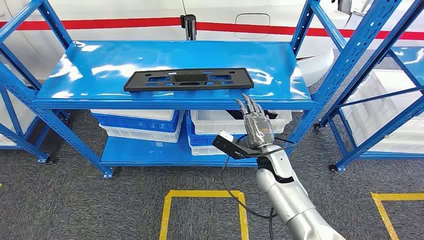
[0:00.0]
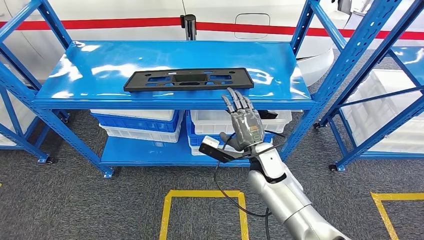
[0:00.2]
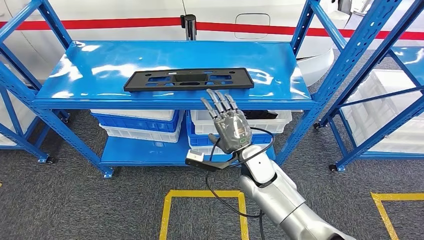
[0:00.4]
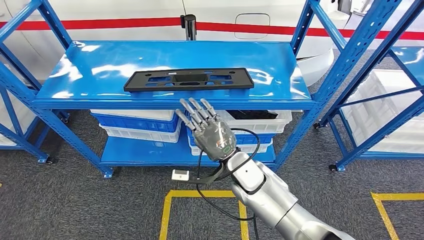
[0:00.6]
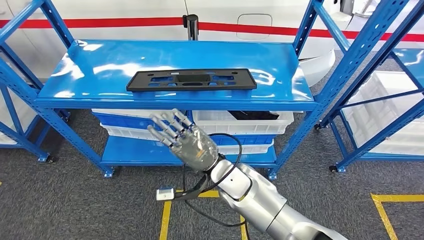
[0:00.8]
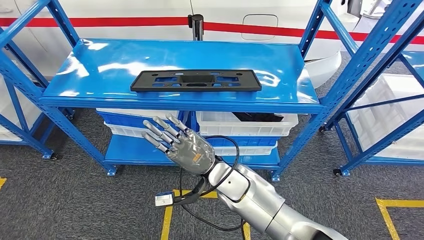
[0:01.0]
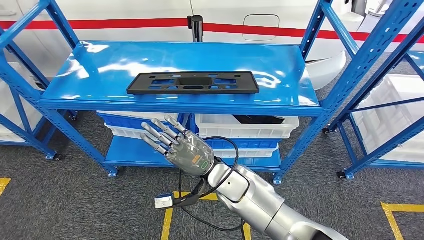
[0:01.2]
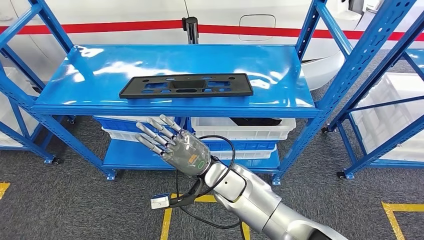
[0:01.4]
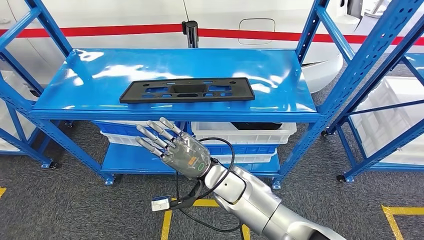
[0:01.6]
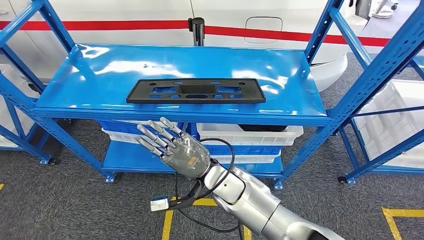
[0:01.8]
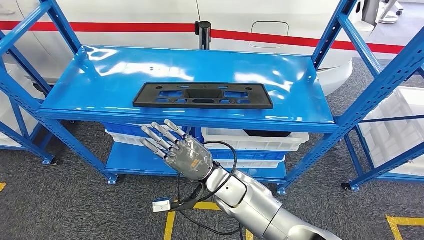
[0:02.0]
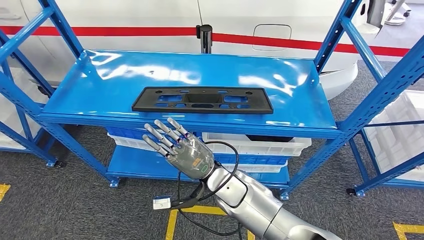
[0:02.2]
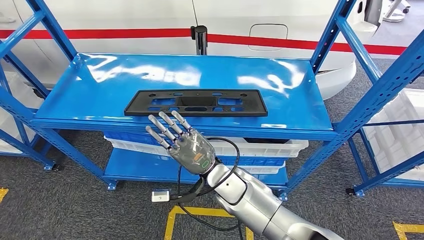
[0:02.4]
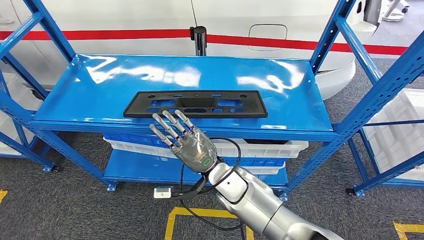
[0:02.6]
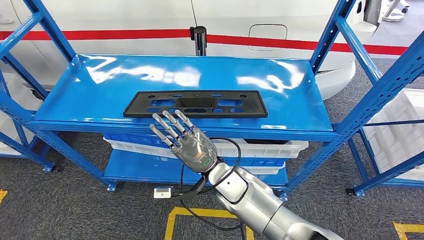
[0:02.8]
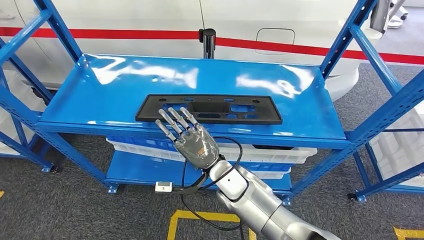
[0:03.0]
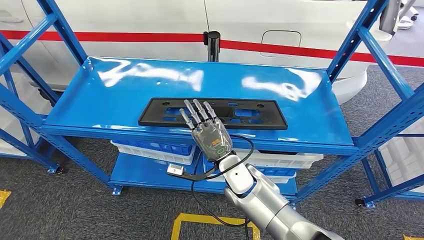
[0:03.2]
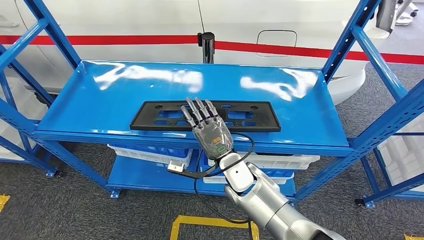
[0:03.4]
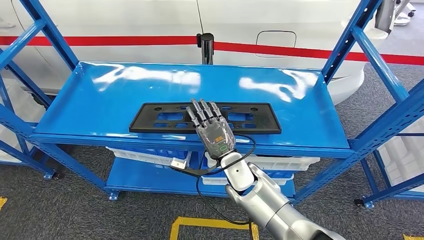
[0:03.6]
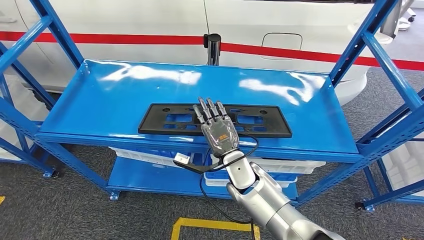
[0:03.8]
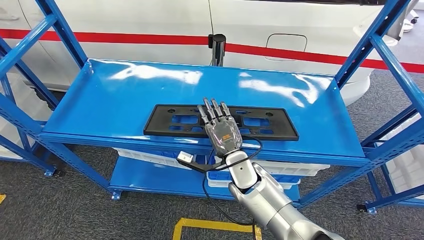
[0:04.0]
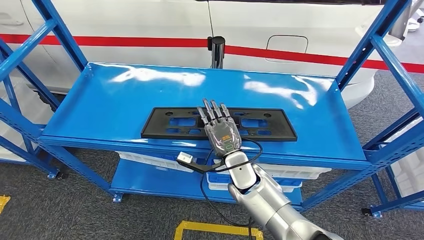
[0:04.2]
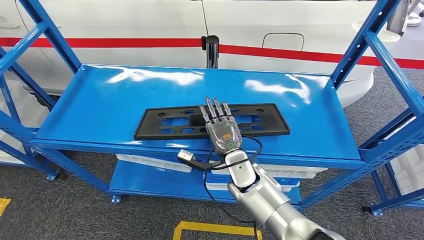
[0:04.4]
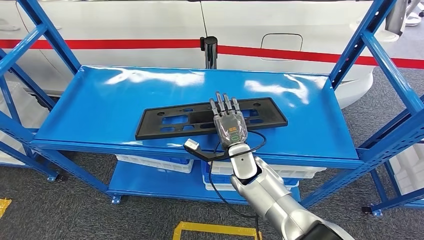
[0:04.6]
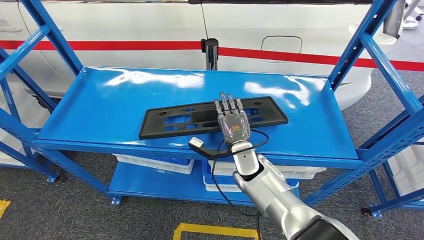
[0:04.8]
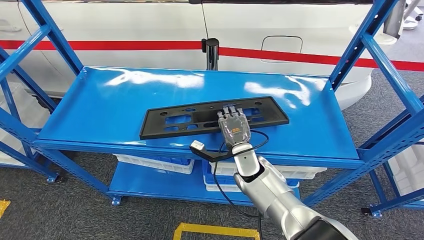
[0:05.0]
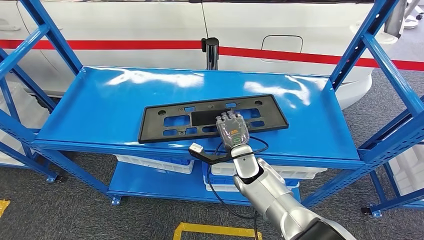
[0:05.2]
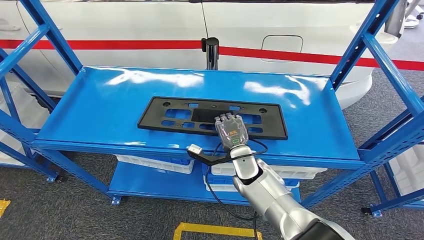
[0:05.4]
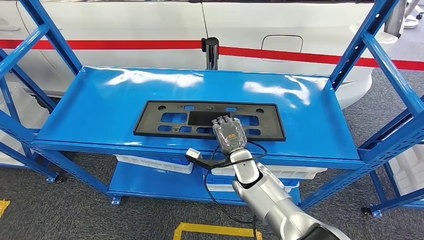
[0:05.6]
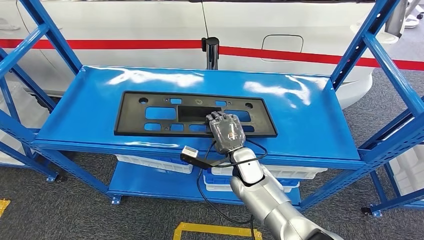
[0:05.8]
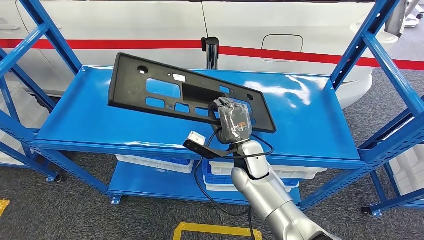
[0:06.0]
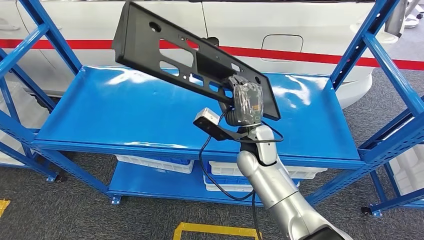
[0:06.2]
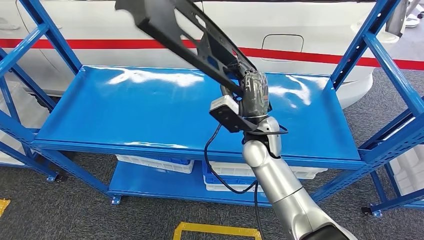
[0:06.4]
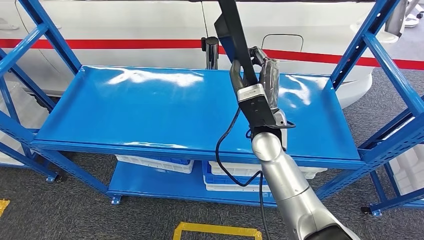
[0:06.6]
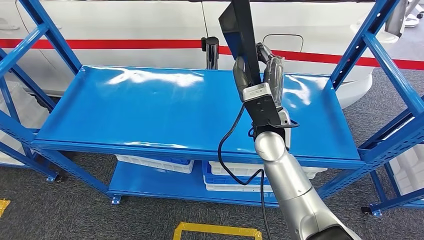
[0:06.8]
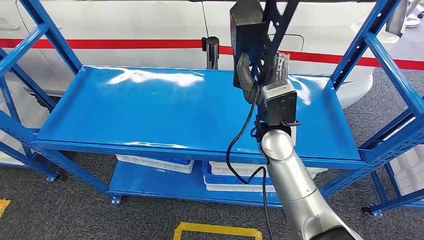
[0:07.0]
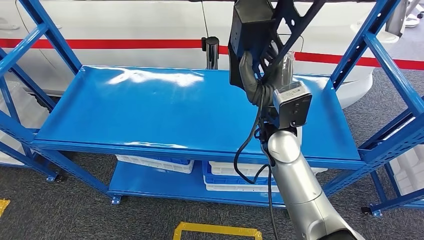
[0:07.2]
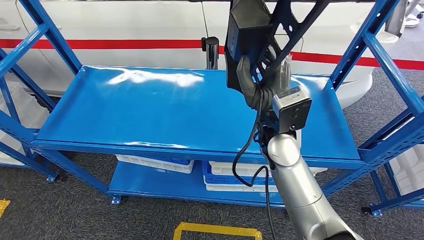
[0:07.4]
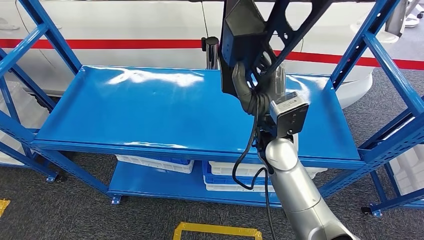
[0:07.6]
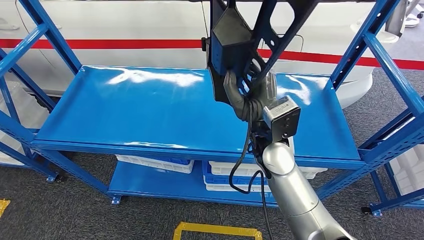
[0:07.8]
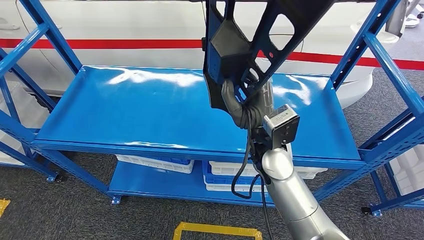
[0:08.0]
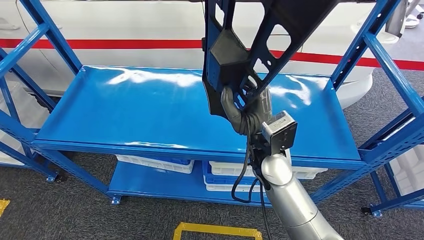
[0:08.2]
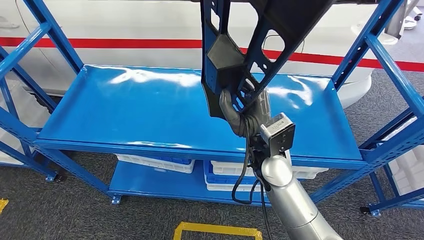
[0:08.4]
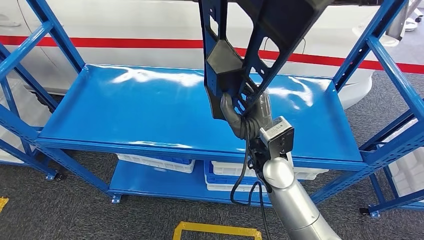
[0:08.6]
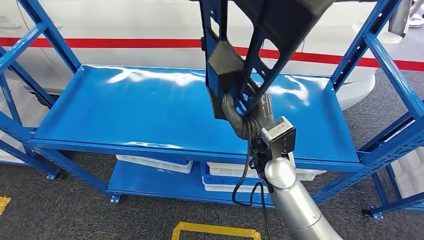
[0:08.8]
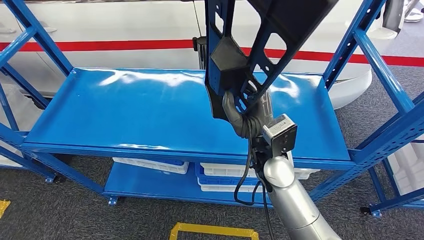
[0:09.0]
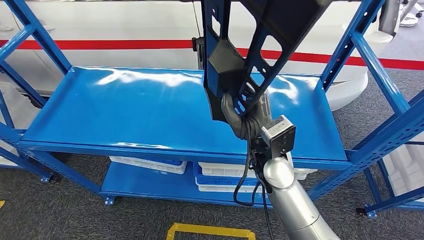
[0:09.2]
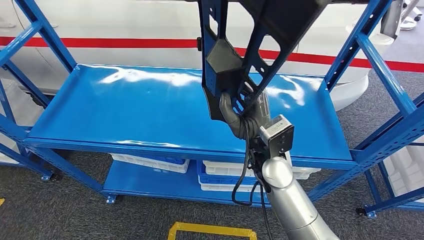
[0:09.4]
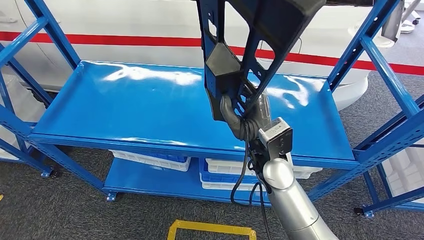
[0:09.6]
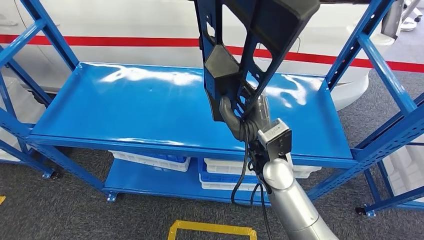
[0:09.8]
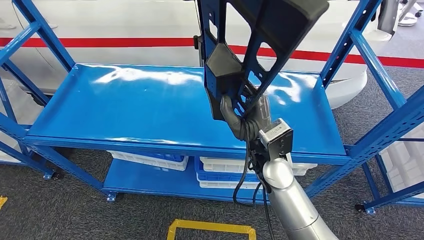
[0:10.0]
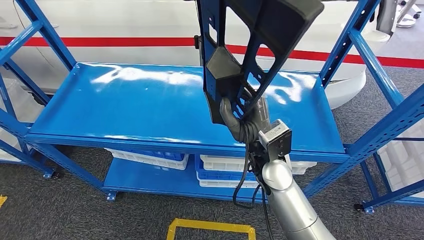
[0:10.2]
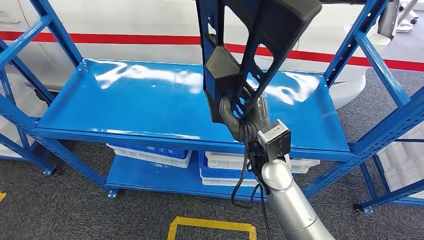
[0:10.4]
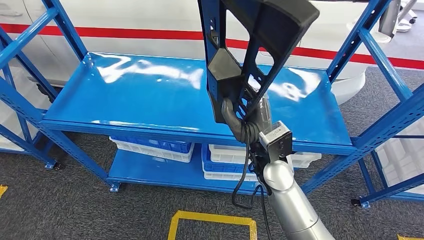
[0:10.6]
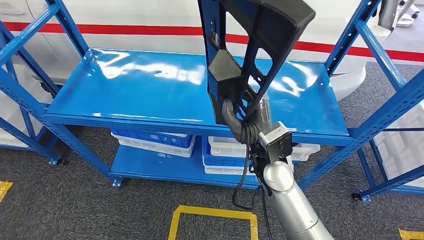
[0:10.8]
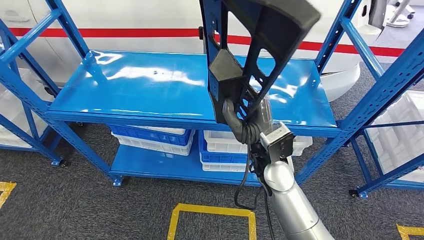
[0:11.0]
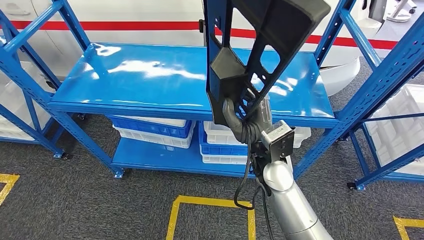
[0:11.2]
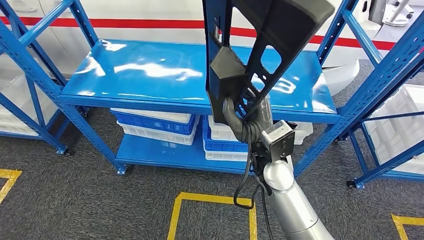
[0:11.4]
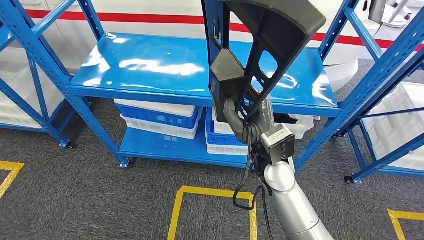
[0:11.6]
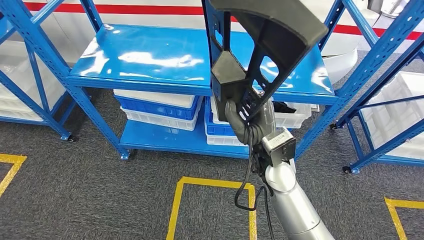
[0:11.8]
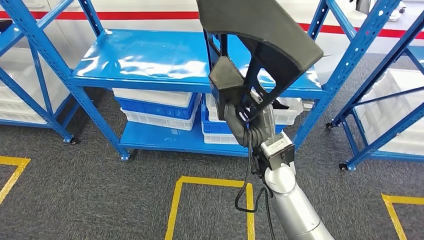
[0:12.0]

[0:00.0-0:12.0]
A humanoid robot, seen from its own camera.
Step, 0:00.0 to 0:10.2: Pick up the large material from the shelf.

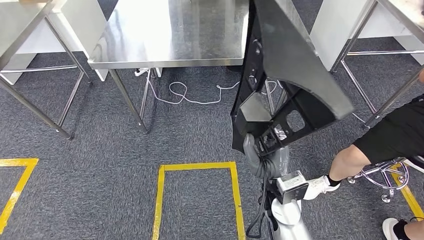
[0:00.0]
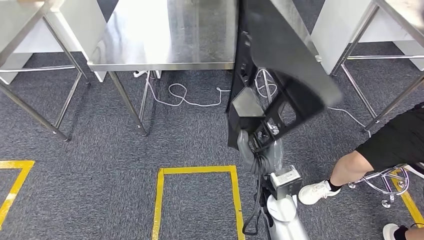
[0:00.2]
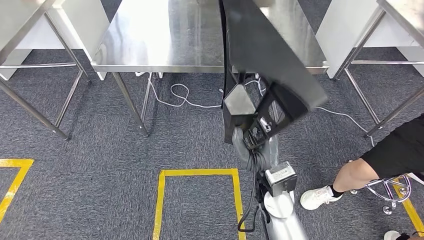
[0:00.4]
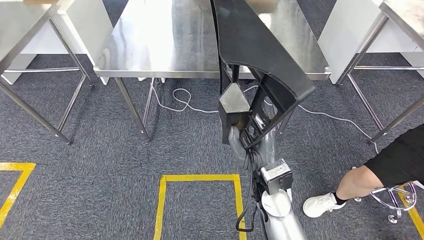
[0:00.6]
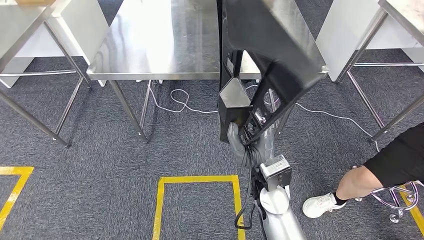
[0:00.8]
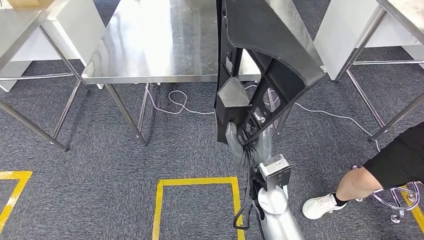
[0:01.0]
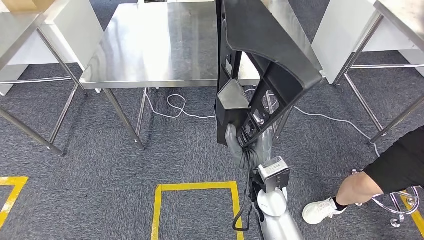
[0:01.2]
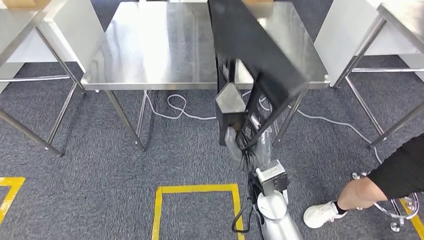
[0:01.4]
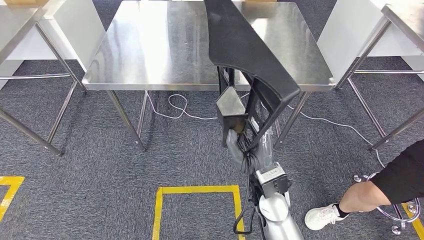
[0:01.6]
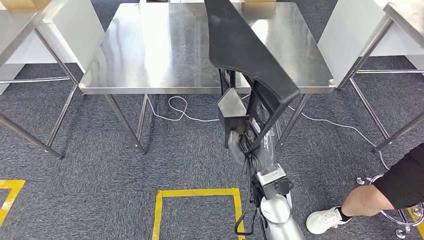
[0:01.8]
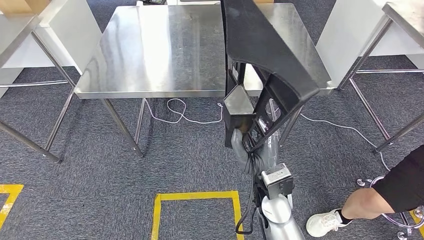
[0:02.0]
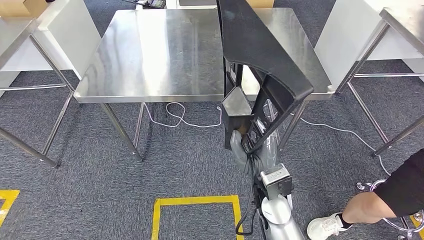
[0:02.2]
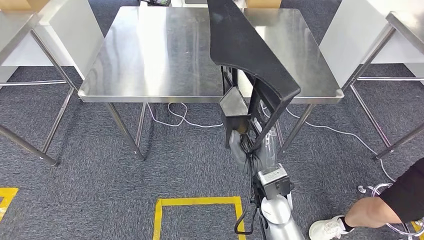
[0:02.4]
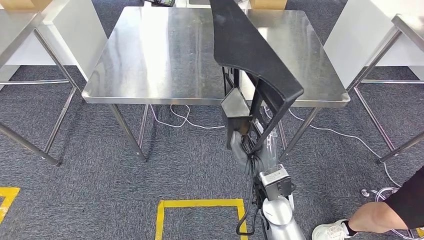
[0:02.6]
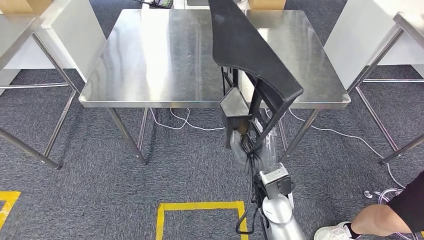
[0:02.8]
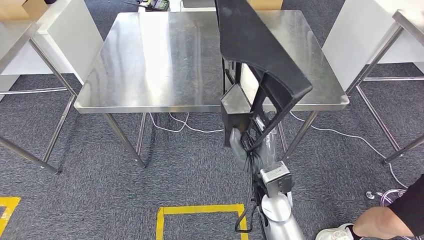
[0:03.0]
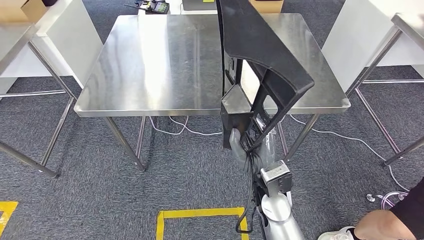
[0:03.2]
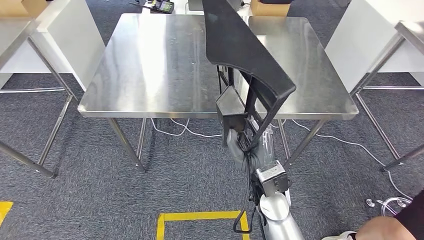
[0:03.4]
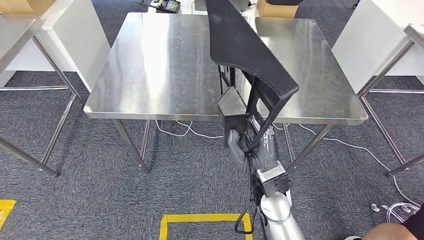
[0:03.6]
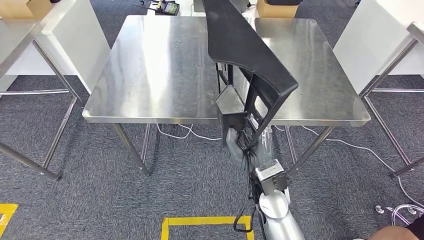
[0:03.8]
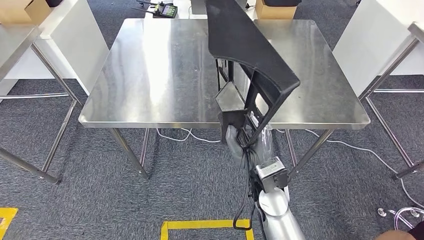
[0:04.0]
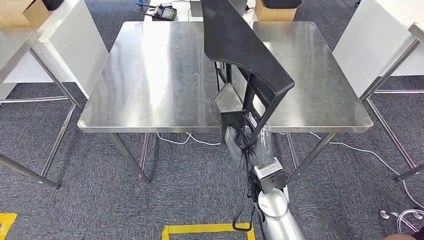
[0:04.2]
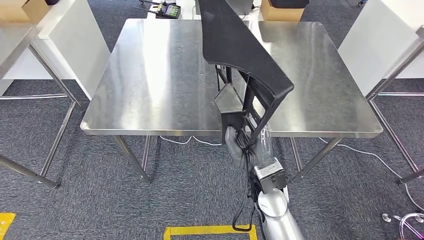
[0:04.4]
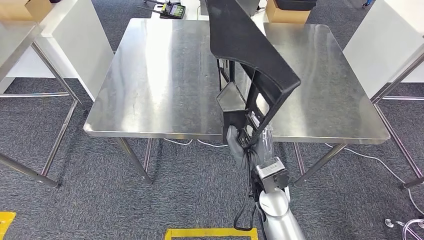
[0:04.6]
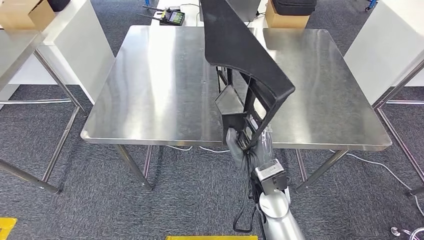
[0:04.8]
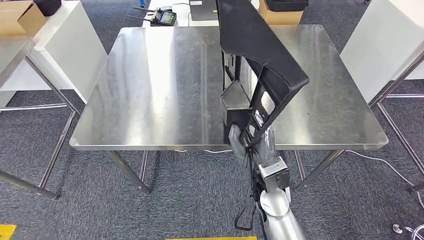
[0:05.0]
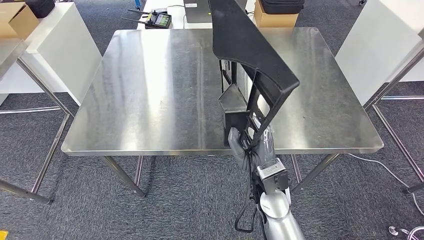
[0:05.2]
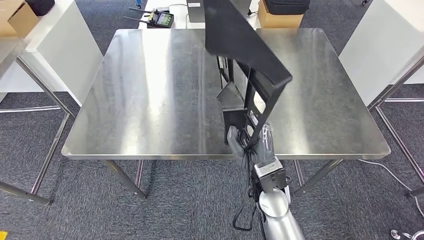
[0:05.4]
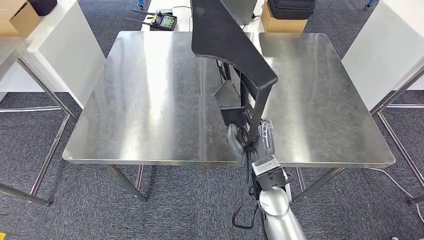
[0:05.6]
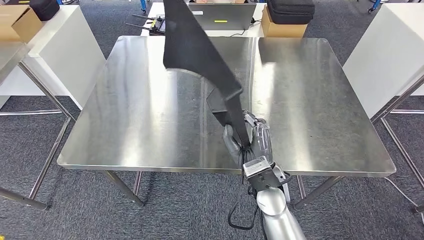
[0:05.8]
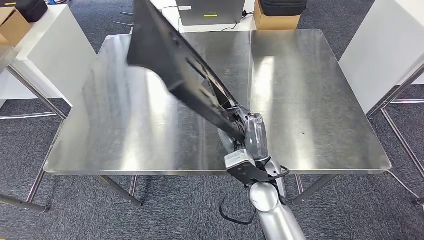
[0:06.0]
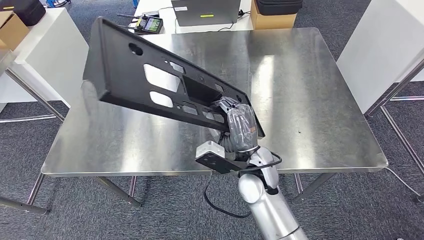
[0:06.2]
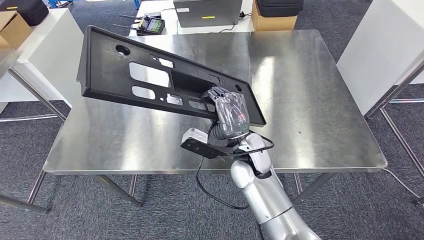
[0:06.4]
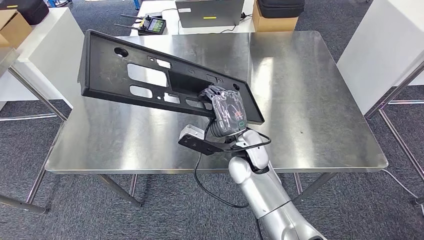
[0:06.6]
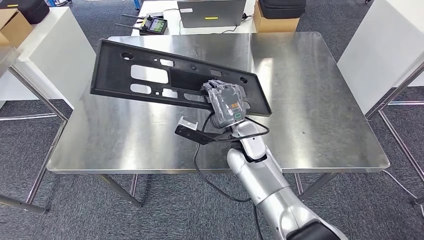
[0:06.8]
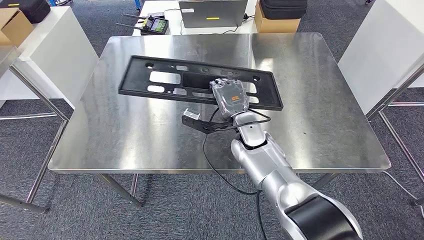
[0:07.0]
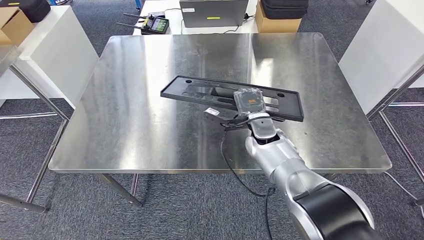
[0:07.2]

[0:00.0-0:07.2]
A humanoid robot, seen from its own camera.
Step, 0:00.0 to 0:04.6: Move the large material to the workbench.
